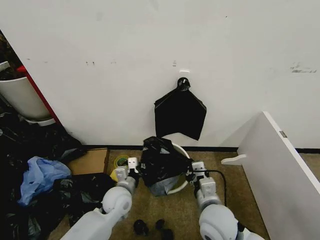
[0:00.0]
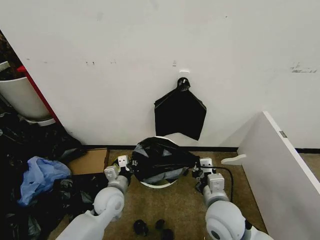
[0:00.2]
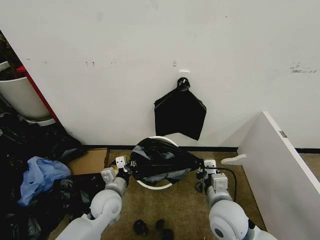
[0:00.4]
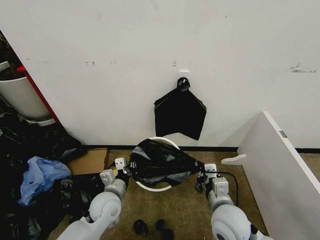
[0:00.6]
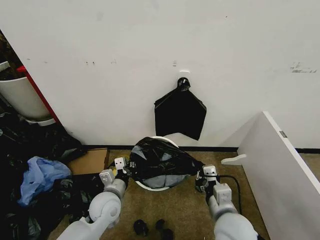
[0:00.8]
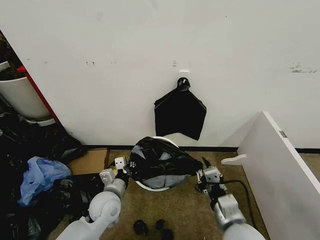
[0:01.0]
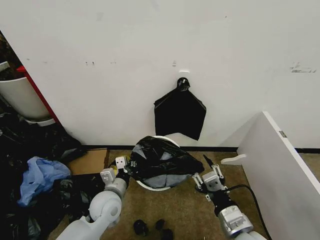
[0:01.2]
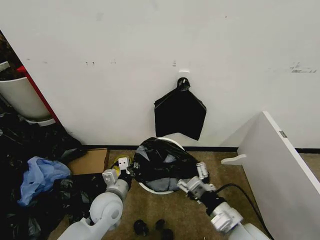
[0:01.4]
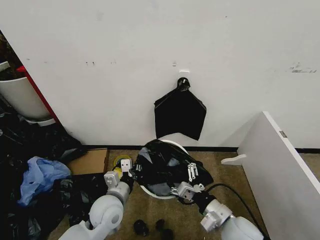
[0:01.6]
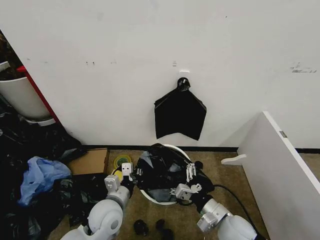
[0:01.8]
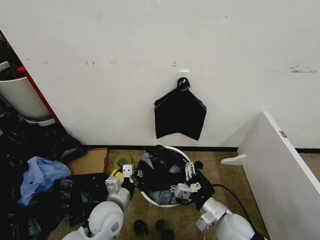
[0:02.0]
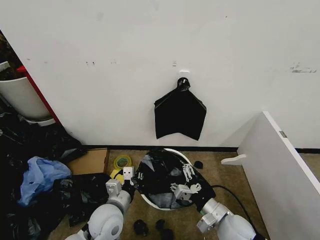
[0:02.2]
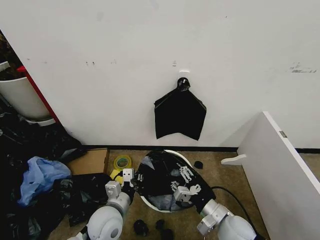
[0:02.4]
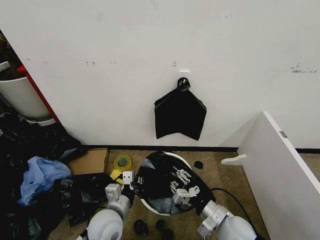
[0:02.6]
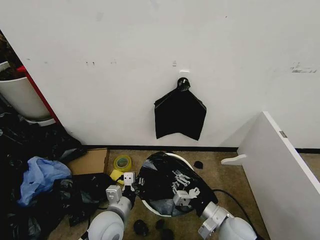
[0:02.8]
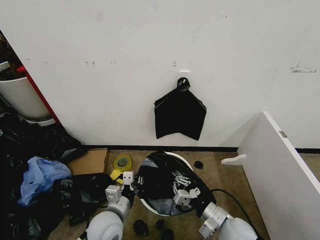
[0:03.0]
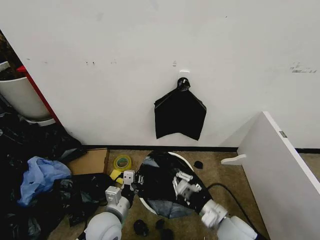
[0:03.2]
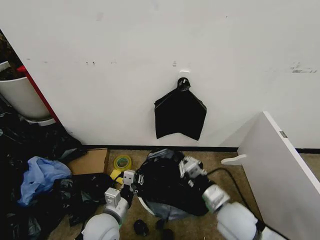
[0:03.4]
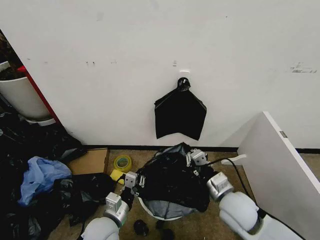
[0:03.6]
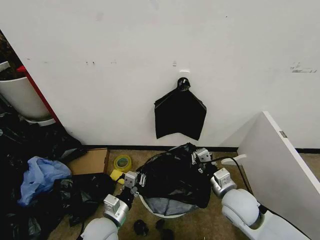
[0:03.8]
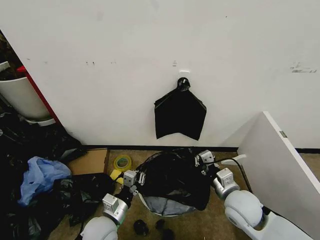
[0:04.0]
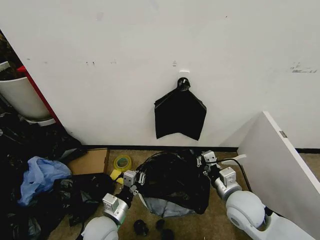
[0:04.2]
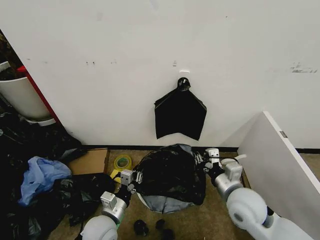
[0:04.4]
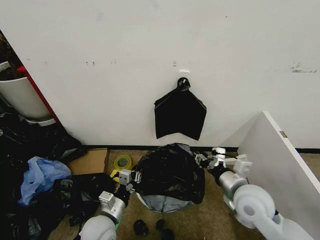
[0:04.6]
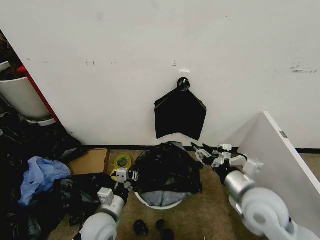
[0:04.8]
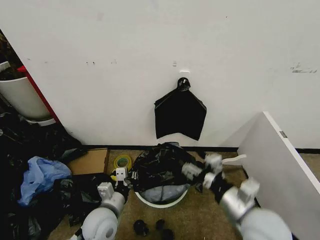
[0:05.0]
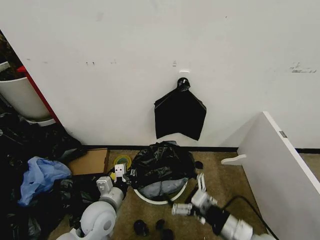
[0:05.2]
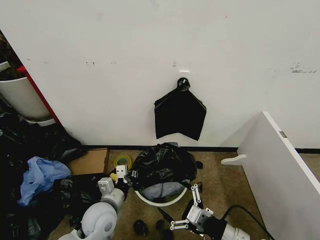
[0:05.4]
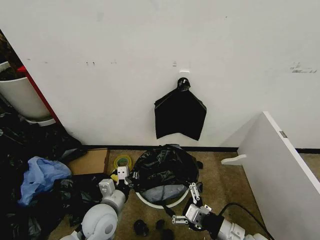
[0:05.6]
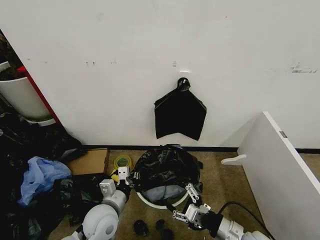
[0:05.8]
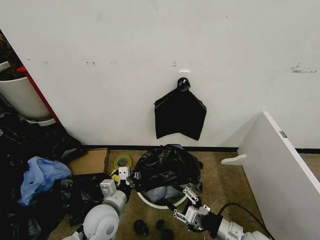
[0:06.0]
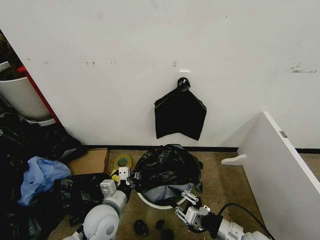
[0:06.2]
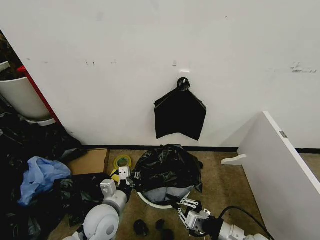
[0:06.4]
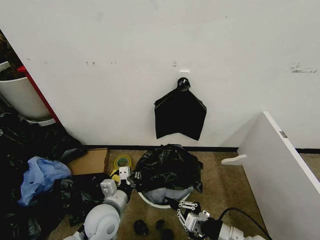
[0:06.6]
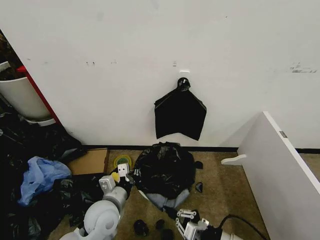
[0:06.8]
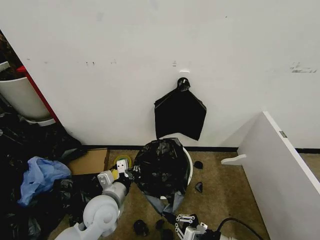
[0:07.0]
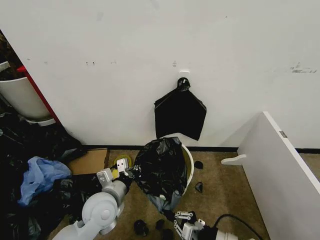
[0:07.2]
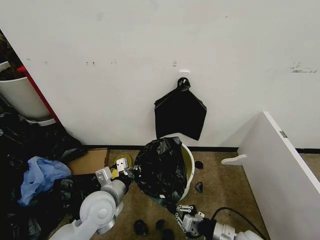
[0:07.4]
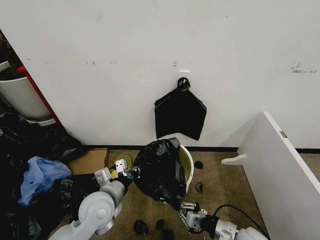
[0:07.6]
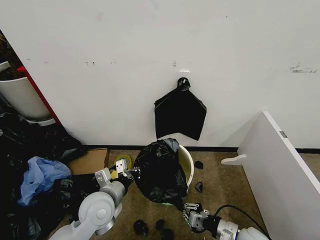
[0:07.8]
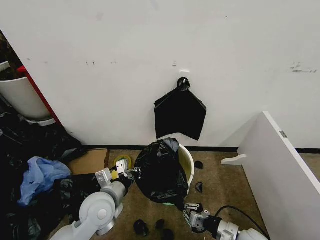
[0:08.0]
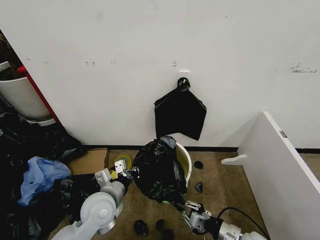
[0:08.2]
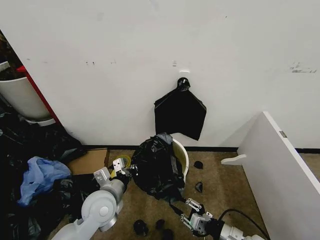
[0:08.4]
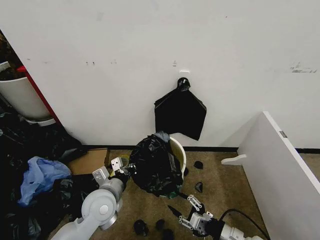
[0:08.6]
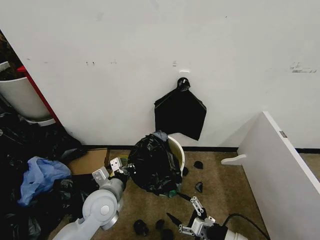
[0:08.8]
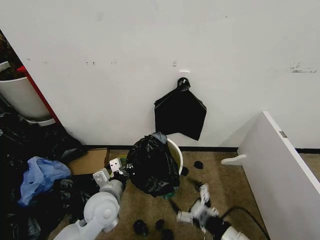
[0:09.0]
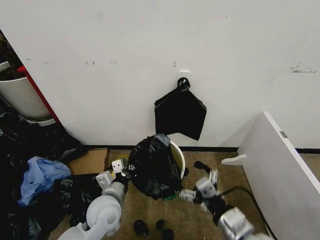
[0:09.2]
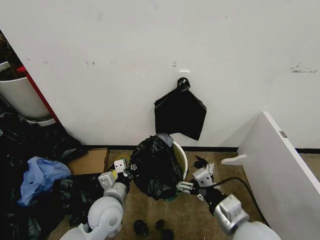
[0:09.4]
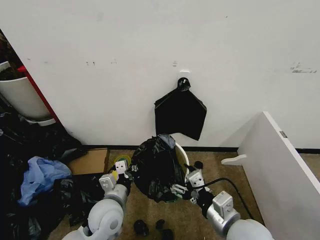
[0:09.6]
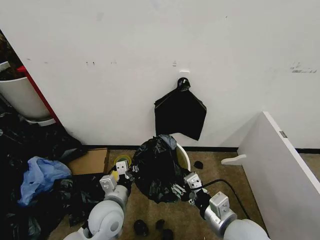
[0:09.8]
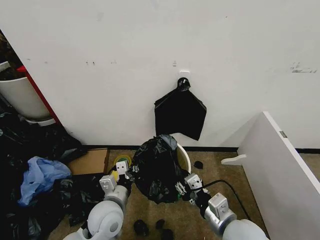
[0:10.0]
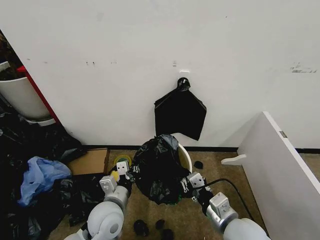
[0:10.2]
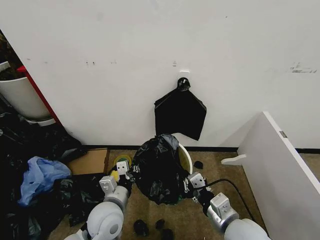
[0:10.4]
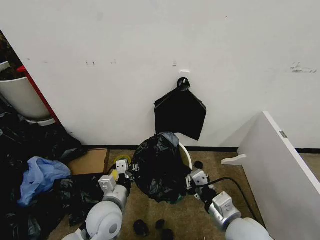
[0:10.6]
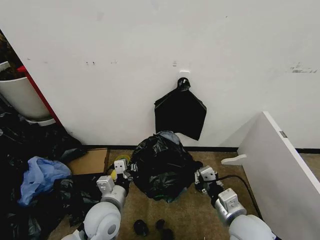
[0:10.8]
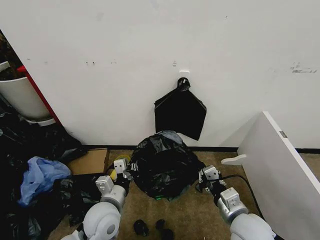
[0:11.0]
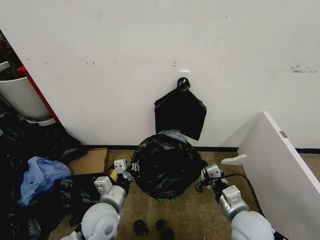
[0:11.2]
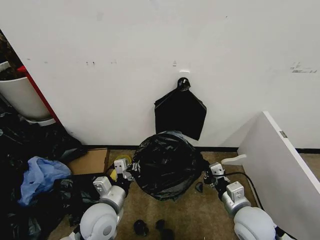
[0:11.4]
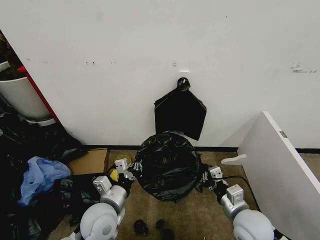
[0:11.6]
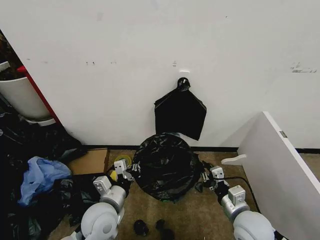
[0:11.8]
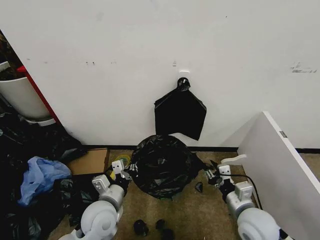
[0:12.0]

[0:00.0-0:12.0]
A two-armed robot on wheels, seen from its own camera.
Task of the whole recording: Place the garbage bag over the trash bin.
0:00.0 to 0:01.6: The right gripper is displaced to the right by approximately 5 cm, reaches approximately 5 cm backward, then returns, and opens; the left gripper moves roughly 5 cm.
0:01.6 to 0:03.0: The right gripper closes up.
0:03.0 to 0:04.4: The right gripper goes some 10 cm upward and forward.
0:04.4 to 0:06.0: The right gripper travels backward and downward by about 10 cm, and opens up.
0:06.0 to 0:07.6: The left gripper shifts by some 5 cm; the right gripper shifts approximately 5 cm downward, and closes up.
0:07.6 to 0:09.0: The right gripper shifts about 10 cm upward and backward, and opens.
0:09.0 to 0:10.4: The right gripper heads forward, covering roughly 5 cm, and closes its fingers.
0:10.4 to 0:12.0: The right gripper goes about 10 cm to the right and downward.

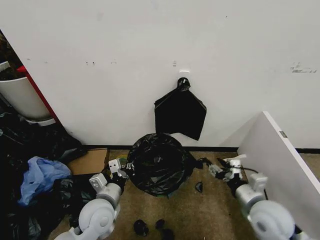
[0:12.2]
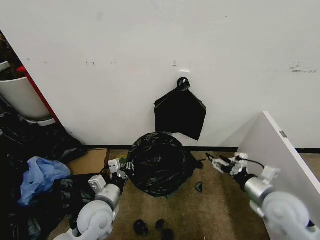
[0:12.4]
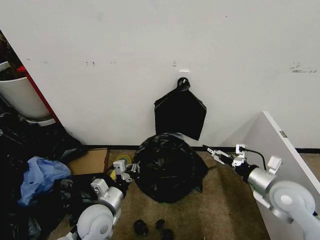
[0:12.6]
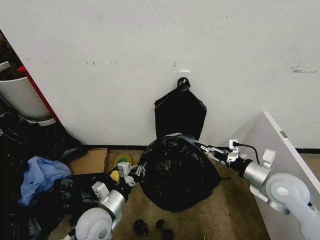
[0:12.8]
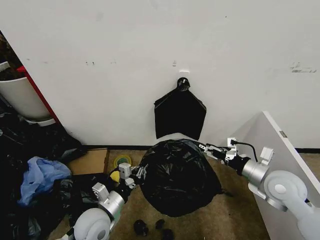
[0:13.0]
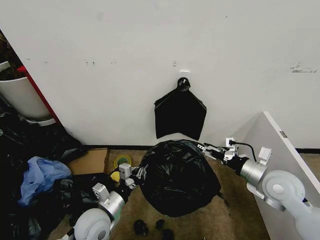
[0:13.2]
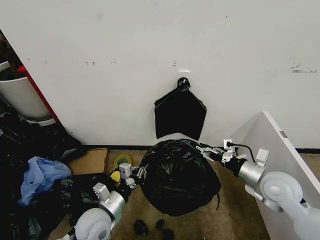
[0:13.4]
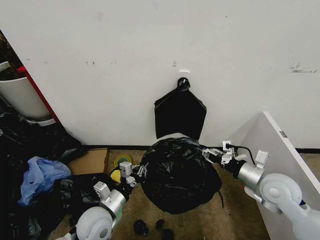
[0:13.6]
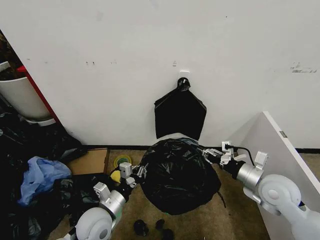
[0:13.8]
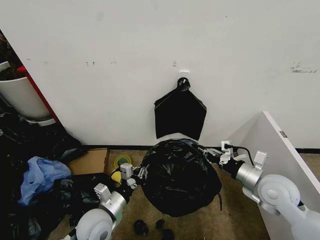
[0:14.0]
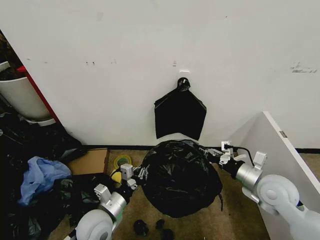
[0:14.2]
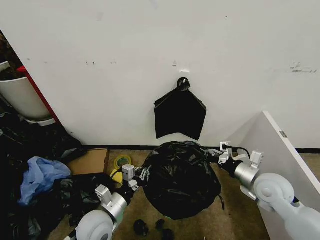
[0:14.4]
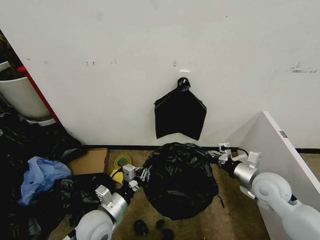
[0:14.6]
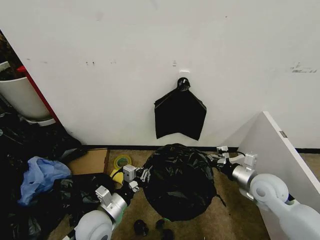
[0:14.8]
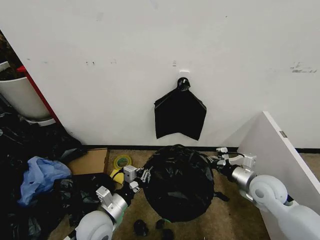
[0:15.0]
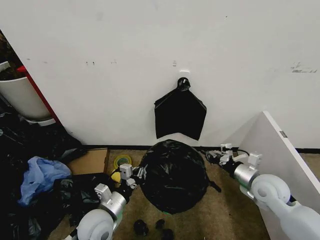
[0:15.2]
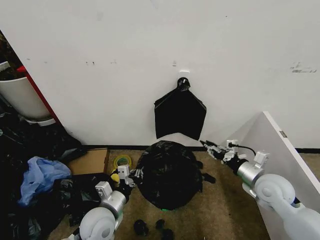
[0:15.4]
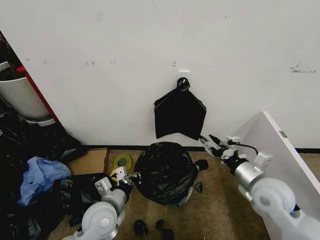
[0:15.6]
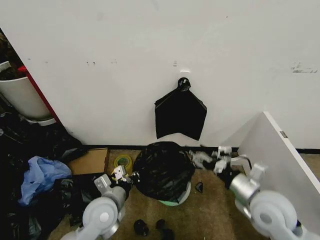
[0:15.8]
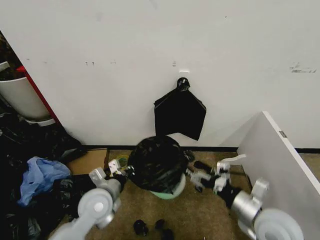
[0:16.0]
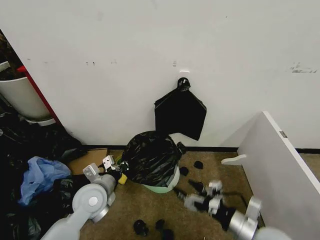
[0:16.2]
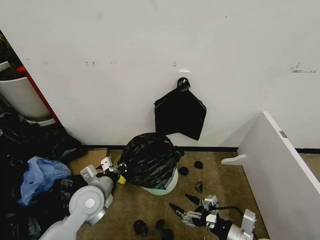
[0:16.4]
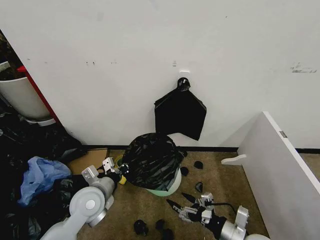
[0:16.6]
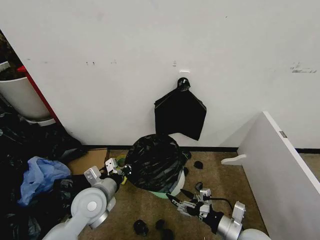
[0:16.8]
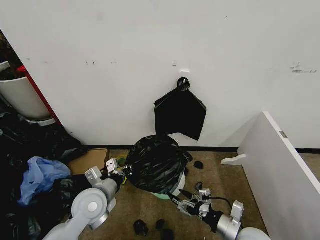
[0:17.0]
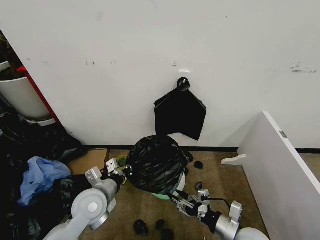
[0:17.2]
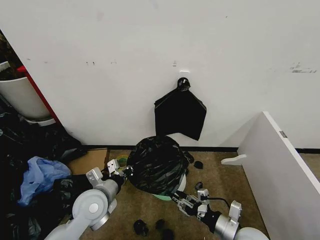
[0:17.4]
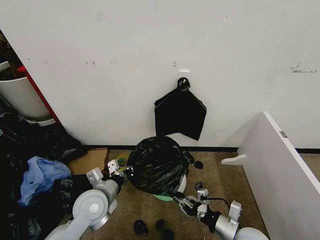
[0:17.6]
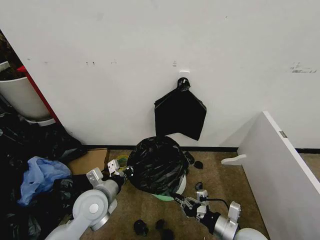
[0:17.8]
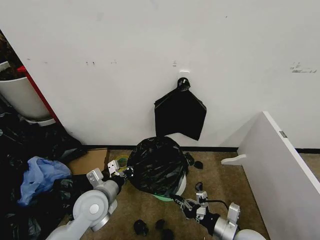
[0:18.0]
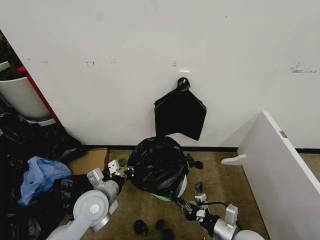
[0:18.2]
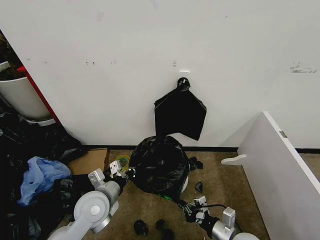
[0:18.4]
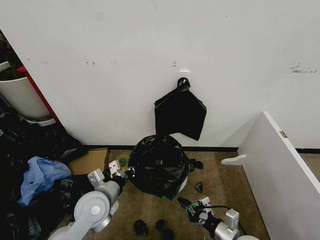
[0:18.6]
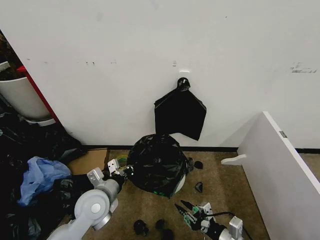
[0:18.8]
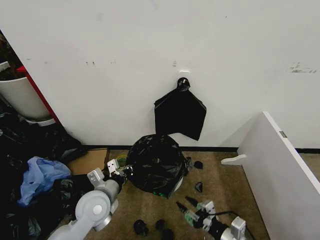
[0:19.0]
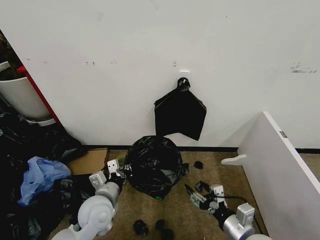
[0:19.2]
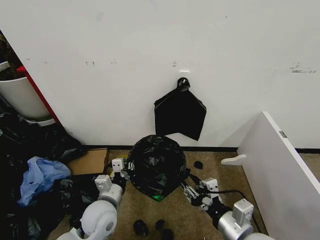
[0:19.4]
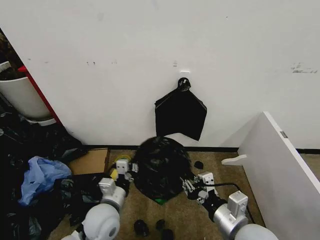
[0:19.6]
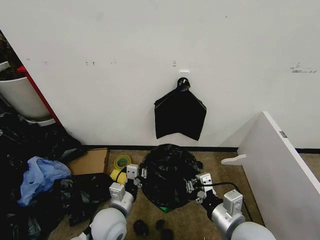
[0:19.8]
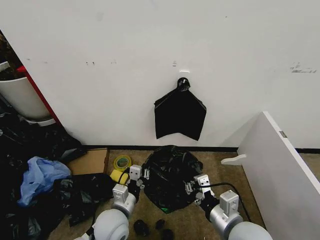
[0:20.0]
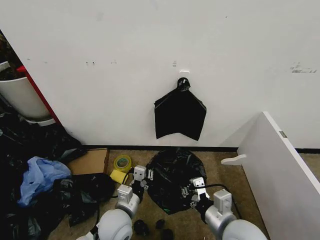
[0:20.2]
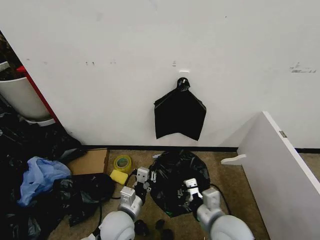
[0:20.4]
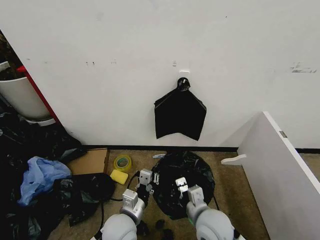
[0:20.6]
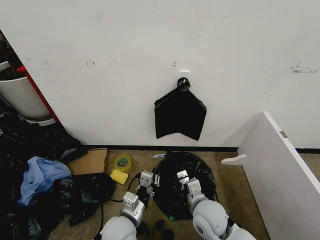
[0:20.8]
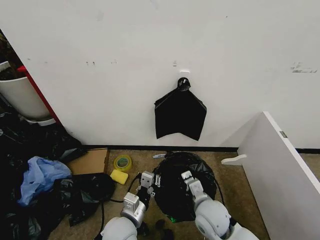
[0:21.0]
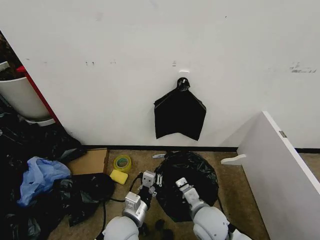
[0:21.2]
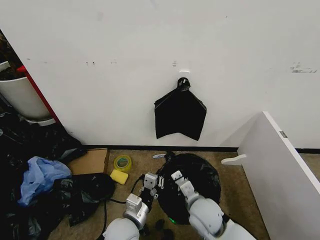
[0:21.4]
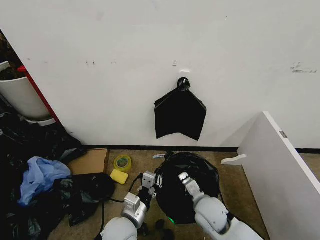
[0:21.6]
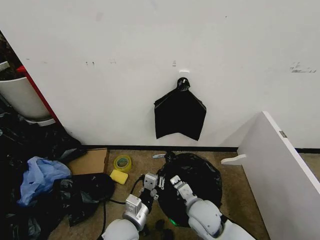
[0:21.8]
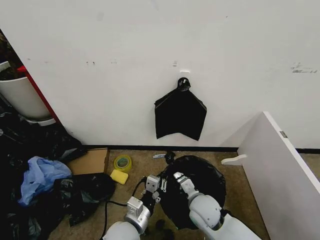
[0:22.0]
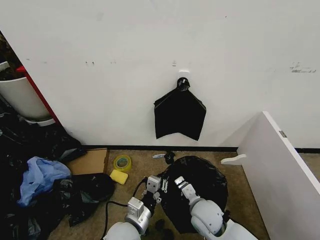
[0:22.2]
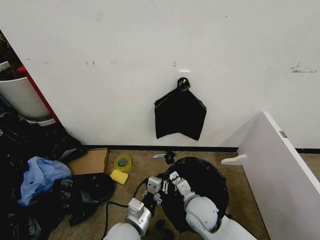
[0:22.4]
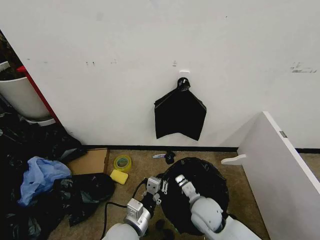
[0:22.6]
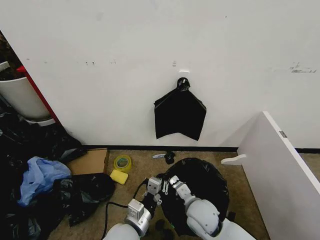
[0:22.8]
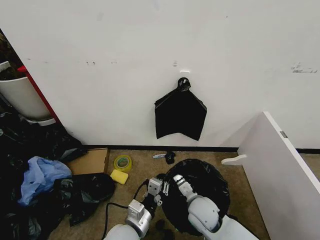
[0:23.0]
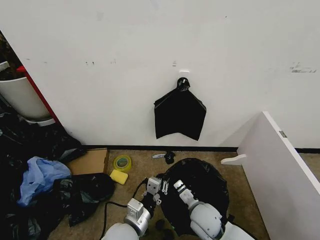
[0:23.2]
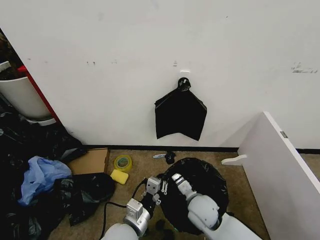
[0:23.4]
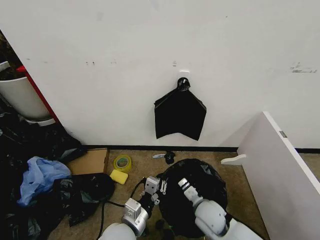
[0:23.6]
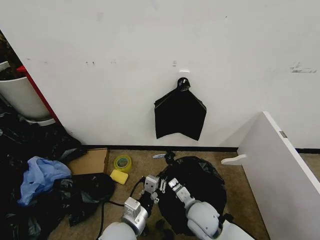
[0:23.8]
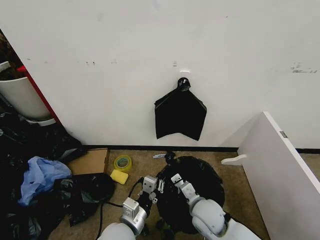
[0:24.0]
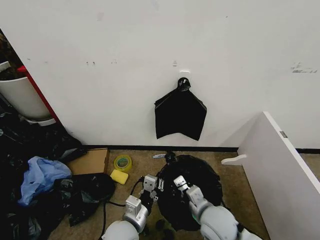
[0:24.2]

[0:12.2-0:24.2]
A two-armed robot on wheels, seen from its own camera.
Task of the whole recording: Place the garbage bag over the trash bin.
0:12.2 to 0:13.8: The right gripper moves forward, about 5 cm, and opens, then closes once more.
0:13.8 to 0:15.2: The grippers move only a little.
0:15.2 to 0:16.6: The left gripper is displaced forward by some 5 cm. Meanwhile the right gripper shifts some 20 cm backward, to the left and downward, and opens up.
0:16.6 to 0:18.2: The right gripper closes its fingers.
0:18.2 to 0:19.8: The left gripper shifts by roughly 5 cm, while the right gripper moves upward, some 15 cm, and opens, then closes again.
0:19.8 to 0:21.2: The right gripper shifts approximately 15 cm downward, to the left and forward, while the left gripper ends up approximately 5 cm from where it was.
0:21.2 to 0:22.6: The right gripper shifts by some 5 cm.
0:22.6 to 0:24.2: The right gripper ends up about 5 cm from where it was.
